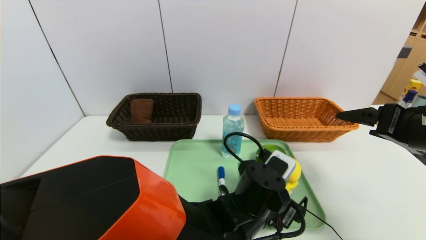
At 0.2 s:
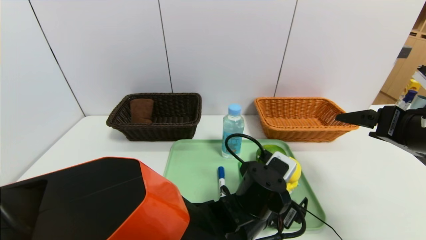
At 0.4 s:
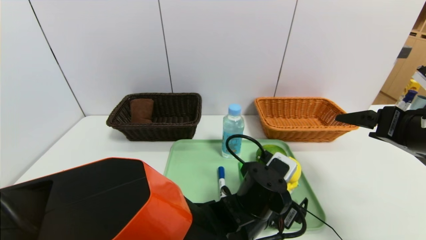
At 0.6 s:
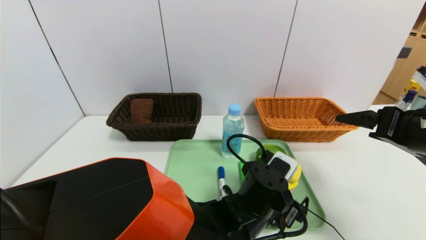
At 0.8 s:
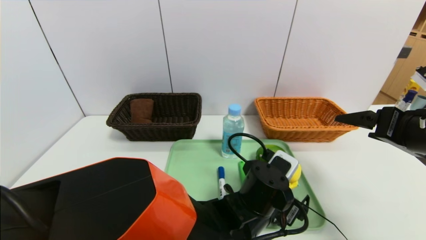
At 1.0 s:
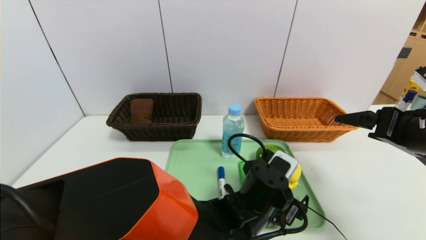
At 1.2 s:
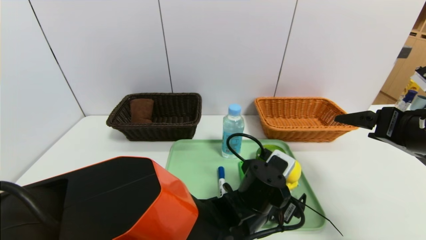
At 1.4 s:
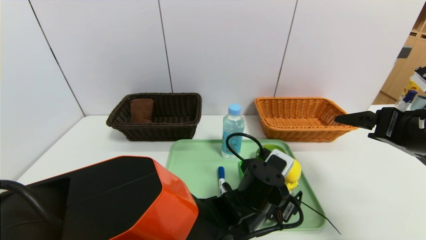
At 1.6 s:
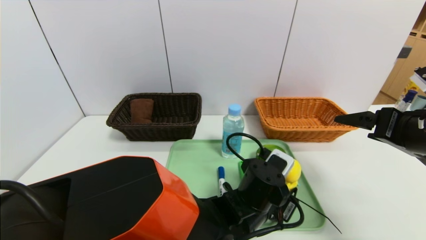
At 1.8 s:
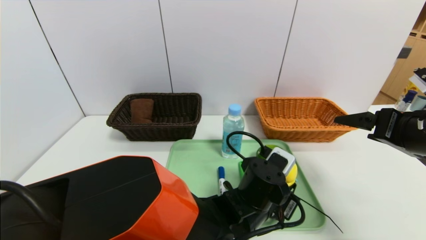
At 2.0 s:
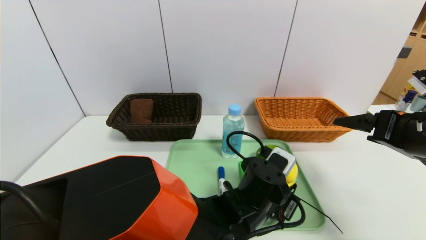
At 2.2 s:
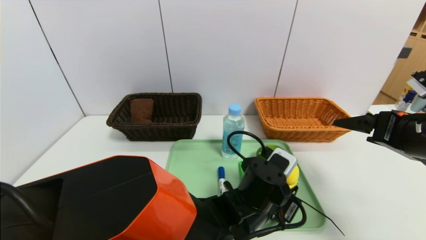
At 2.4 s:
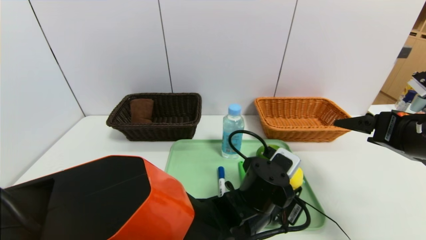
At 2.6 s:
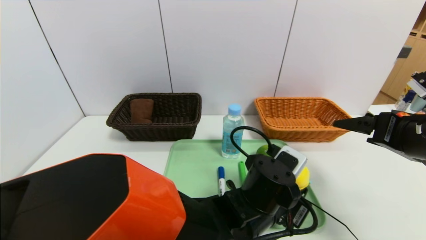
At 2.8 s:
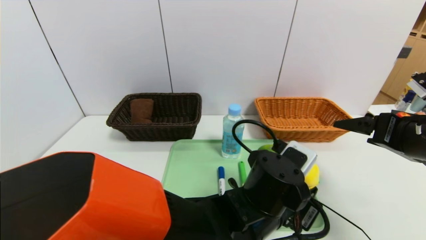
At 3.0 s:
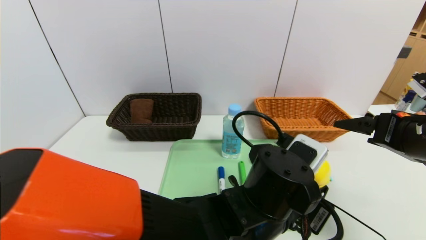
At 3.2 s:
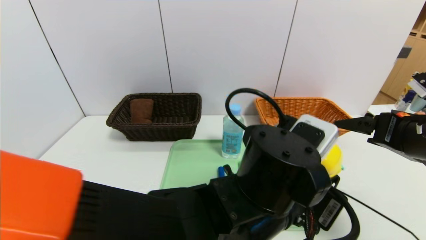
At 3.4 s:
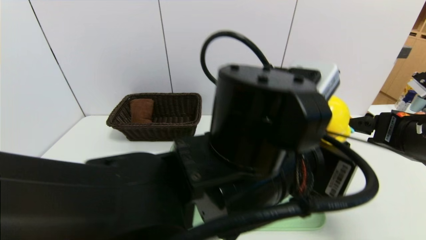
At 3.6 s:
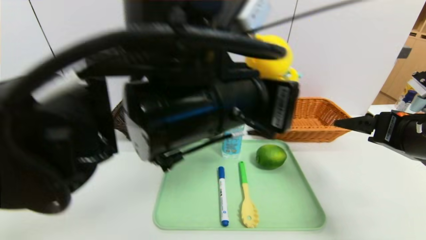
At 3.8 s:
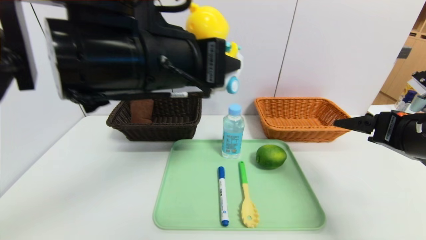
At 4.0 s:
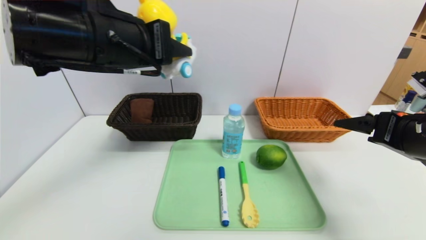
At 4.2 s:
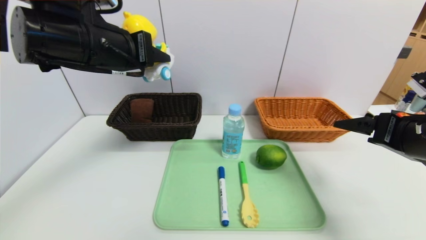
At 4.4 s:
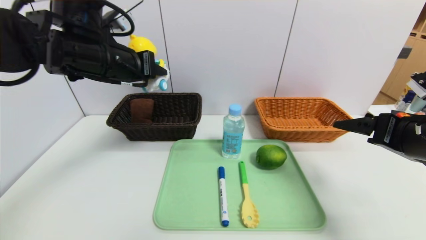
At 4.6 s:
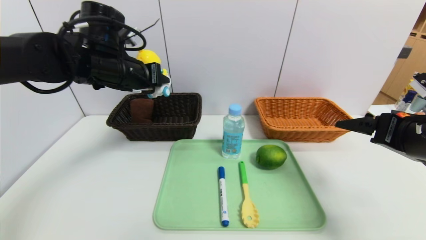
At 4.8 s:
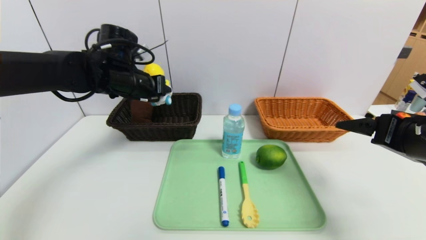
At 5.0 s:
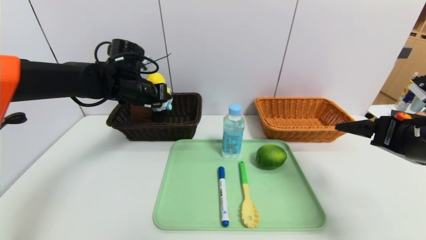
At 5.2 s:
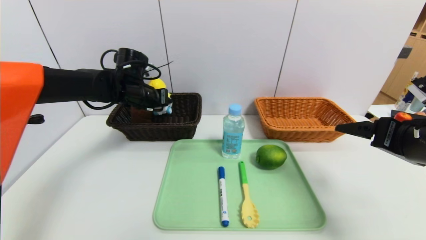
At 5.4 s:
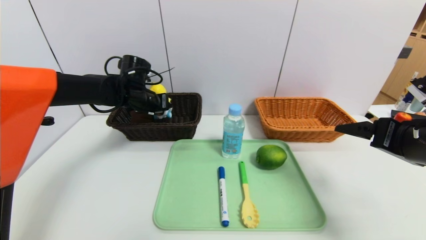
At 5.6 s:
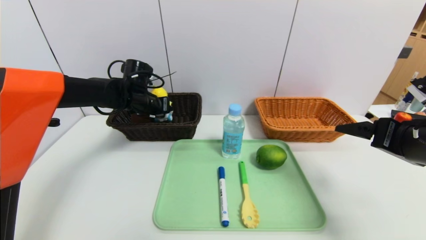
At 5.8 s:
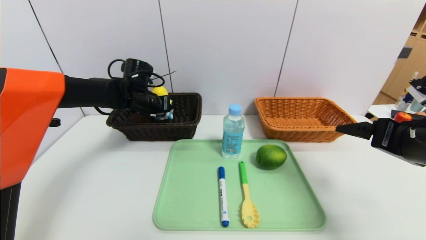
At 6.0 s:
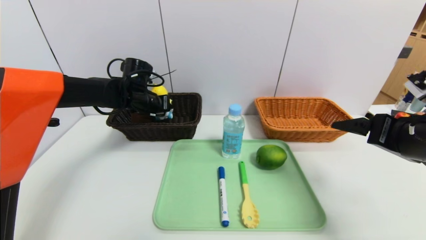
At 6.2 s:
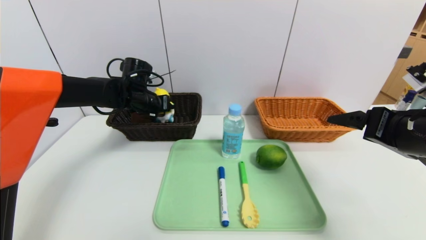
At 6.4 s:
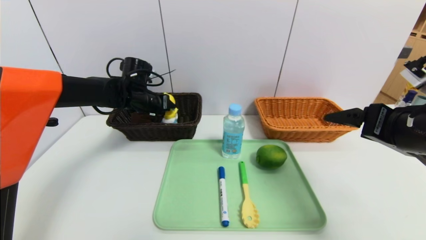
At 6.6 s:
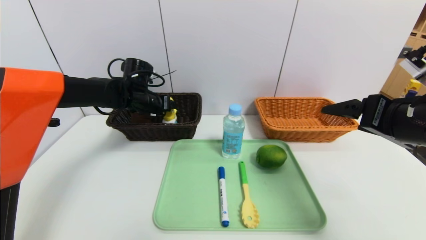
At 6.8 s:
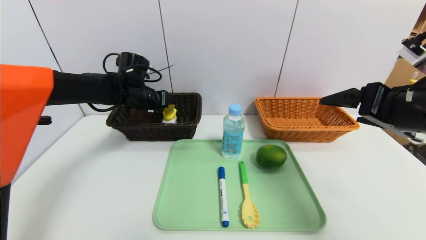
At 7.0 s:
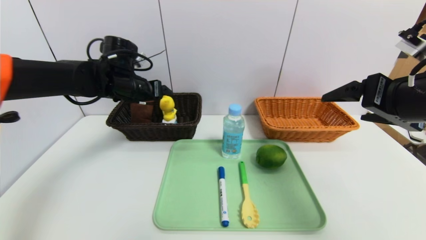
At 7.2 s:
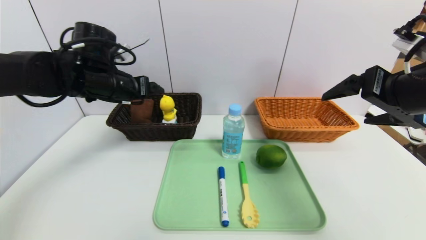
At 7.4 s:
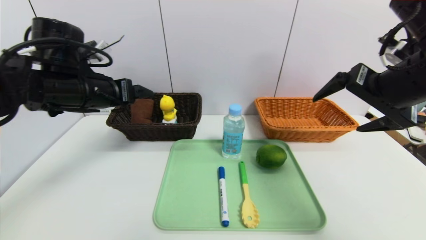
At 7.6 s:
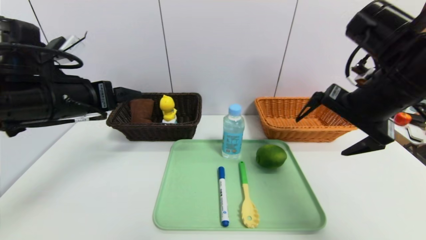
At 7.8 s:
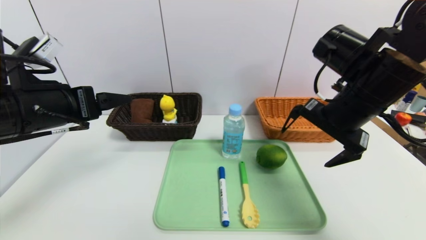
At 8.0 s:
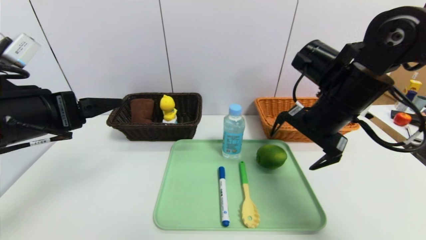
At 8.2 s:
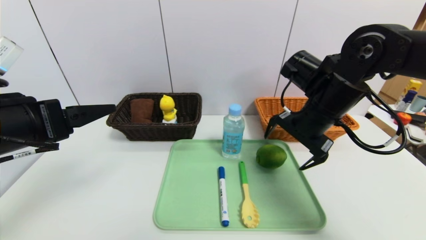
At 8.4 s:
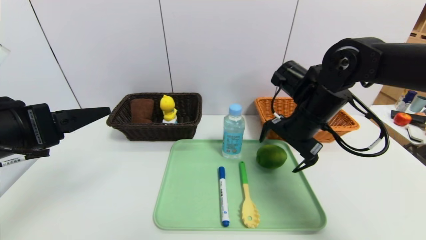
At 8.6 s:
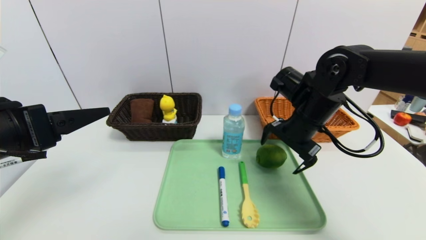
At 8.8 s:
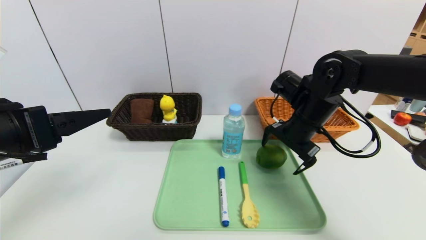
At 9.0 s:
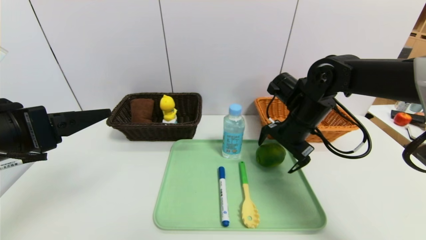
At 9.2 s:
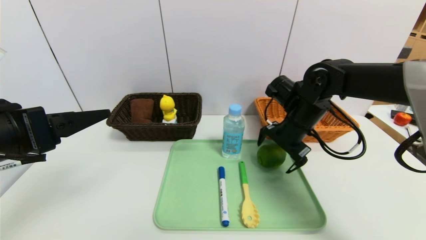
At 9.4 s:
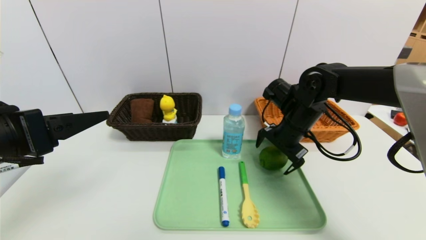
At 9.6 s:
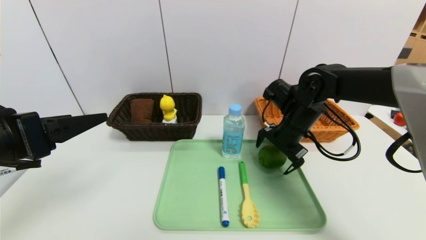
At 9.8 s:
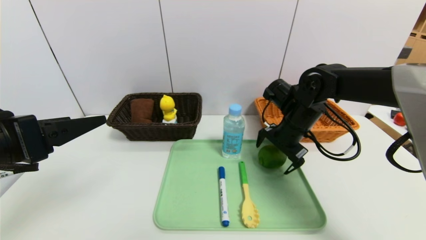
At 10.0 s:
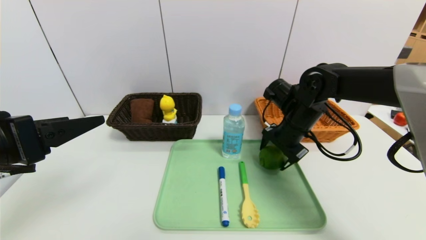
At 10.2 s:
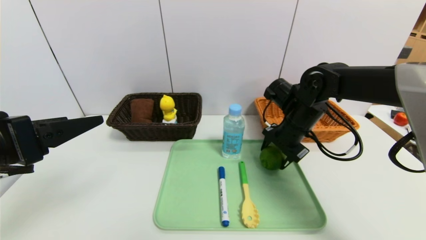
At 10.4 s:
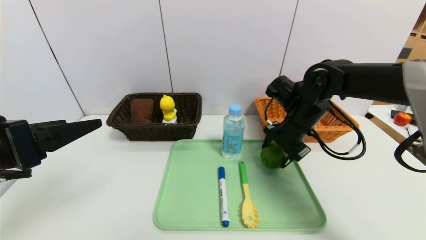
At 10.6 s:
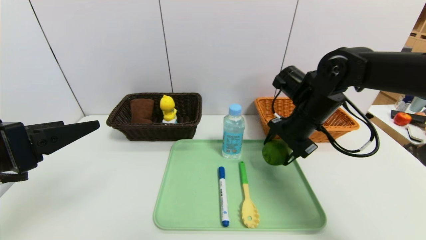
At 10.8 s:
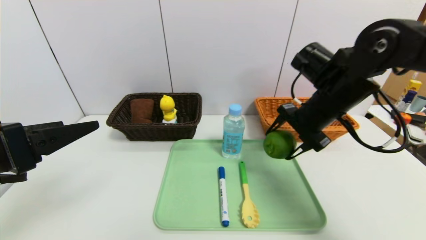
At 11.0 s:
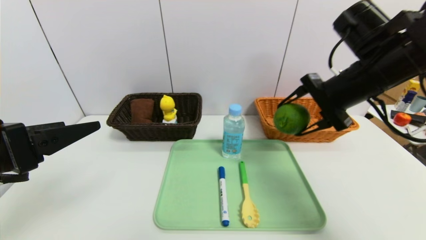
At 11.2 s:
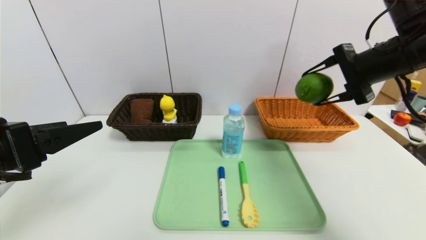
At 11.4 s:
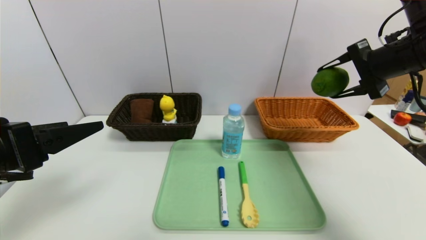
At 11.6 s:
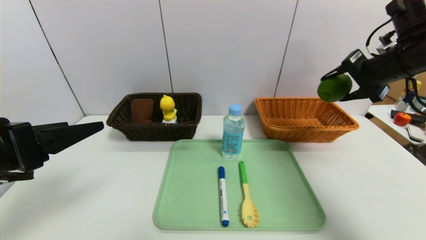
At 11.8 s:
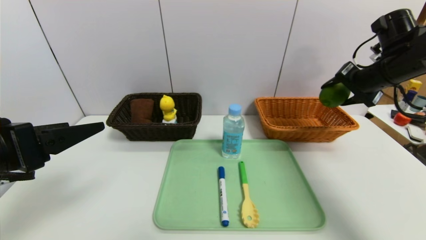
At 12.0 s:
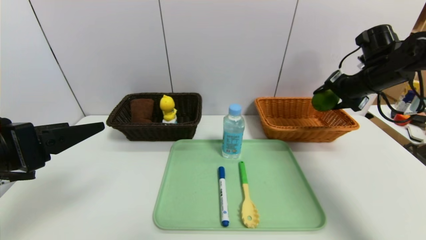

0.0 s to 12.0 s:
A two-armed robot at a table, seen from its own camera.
Task of the whole recording: place the food in the right basket with the right gripper, and place the non food items in the left basket with the left gripper.
Step, 0.0 to 7.0 s: Grasp the yellow duck and put it in the left basket.
0.0 to 1.6 s: The left gripper closes.
1.6 to 3.0 s: The left gripper shifts roughly 10 cm upward and backward.
3.0 to 4.4 s: The left gripper moves to the left, upward and forward, some 35 cm.
4.4 to 6.0 s: The left gripper goes roughly 20 cm downward and forward.
6.0 to 7.6 s: The left gripper moves backward and upward, about 20 cm, and opens. The right gripper goes some 10 cm to the left, upward and forward.
7.6 to 9.0 s: The left gripper travels backward by about 10 cm, while the right gripper moves downward and forward, roughly 15 cm.
9.0 to 10.4 s: The right gripper closes up.
10.4 to 12.0 s: The right gripper shifts approximately 20 cm to the right and upward.

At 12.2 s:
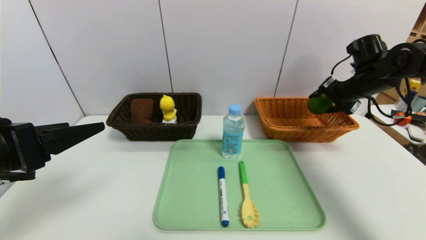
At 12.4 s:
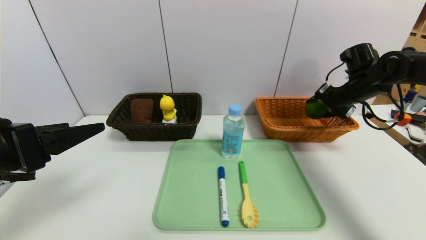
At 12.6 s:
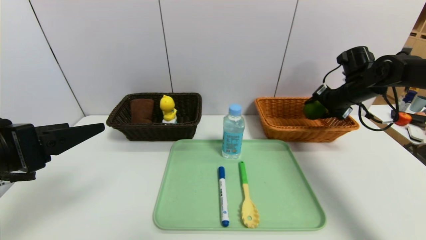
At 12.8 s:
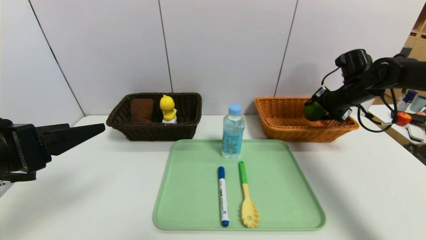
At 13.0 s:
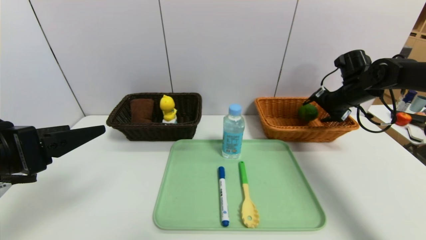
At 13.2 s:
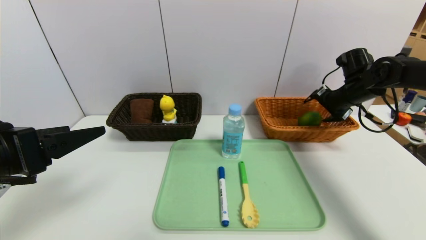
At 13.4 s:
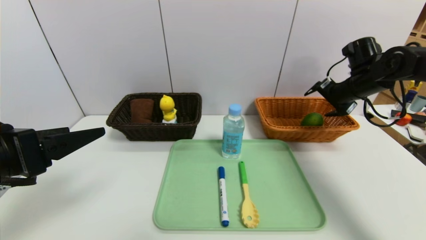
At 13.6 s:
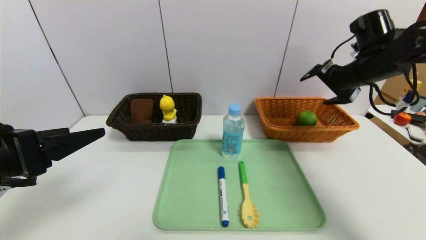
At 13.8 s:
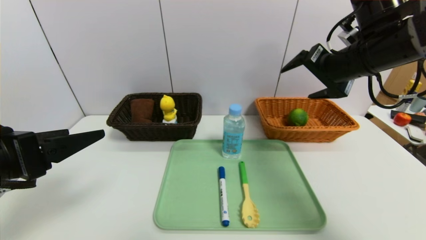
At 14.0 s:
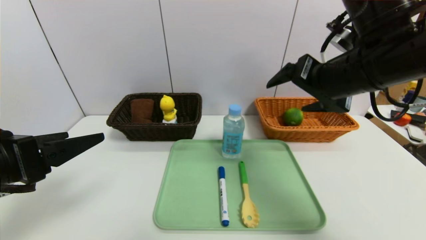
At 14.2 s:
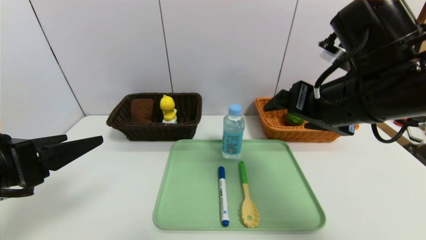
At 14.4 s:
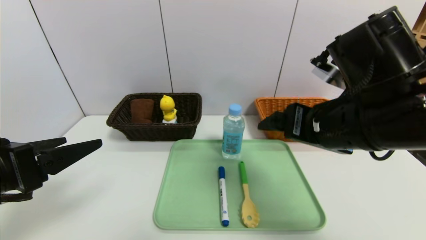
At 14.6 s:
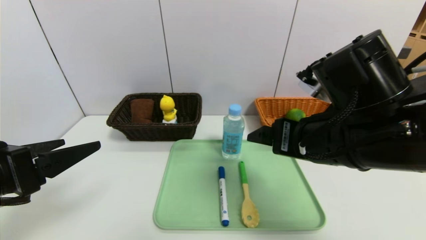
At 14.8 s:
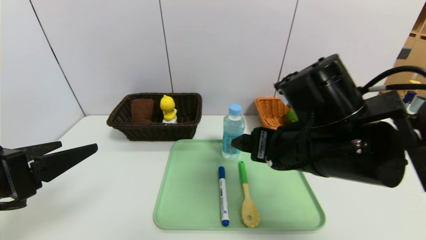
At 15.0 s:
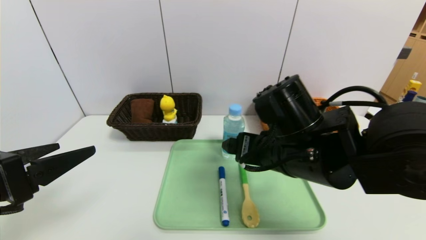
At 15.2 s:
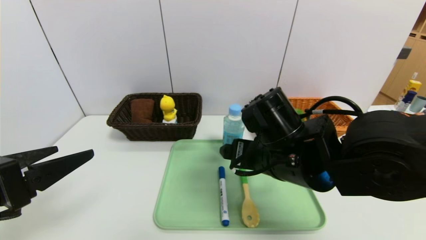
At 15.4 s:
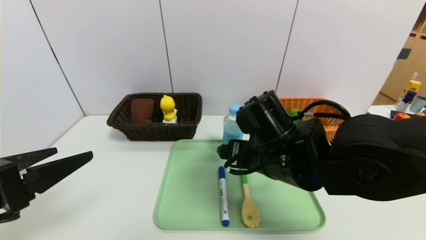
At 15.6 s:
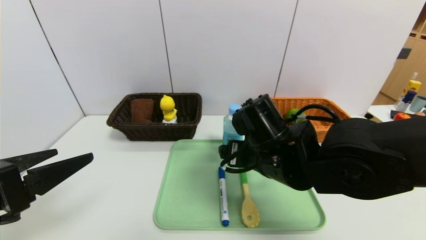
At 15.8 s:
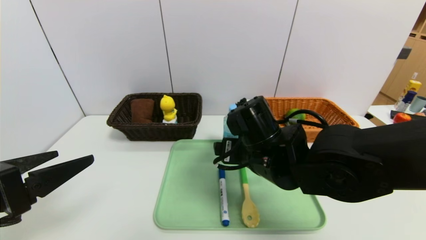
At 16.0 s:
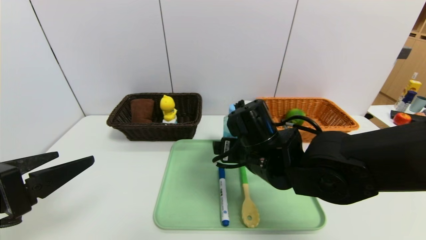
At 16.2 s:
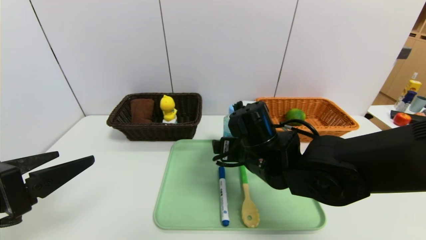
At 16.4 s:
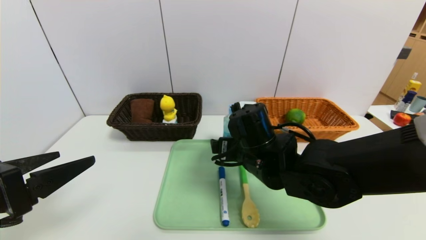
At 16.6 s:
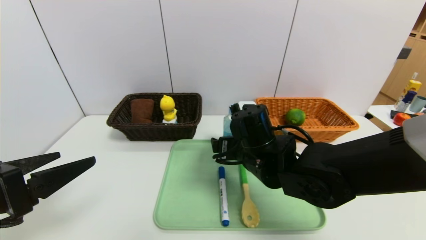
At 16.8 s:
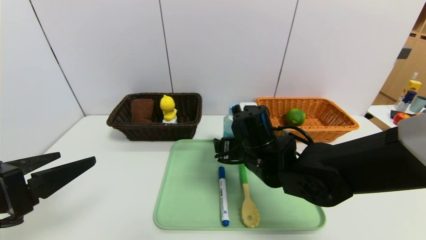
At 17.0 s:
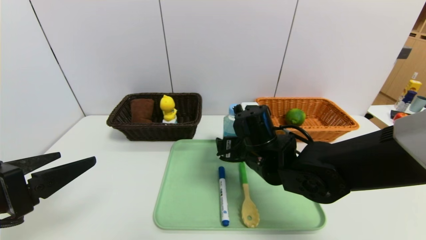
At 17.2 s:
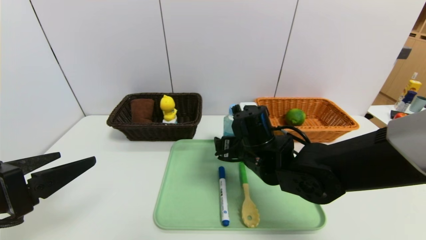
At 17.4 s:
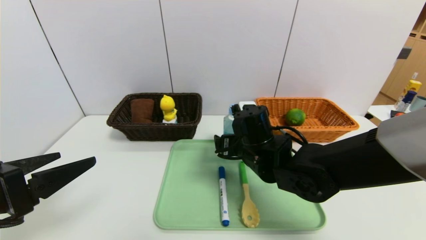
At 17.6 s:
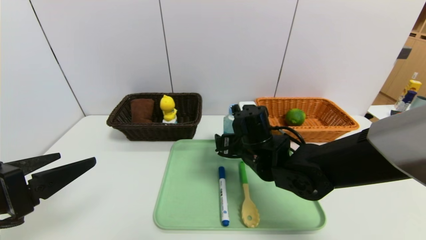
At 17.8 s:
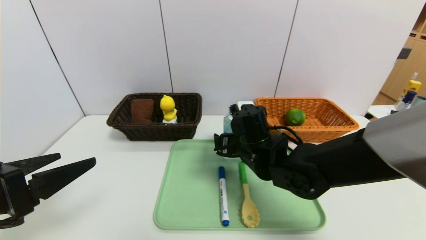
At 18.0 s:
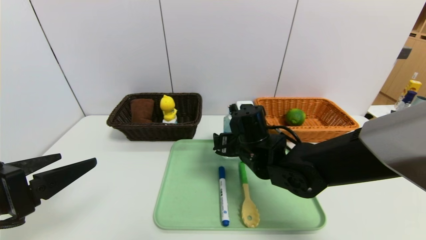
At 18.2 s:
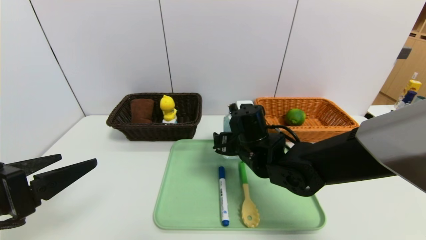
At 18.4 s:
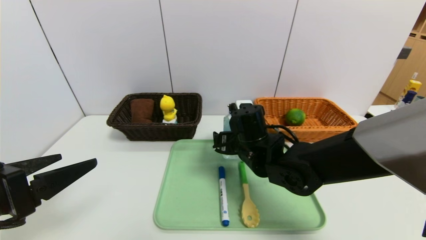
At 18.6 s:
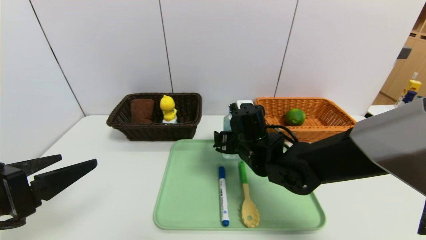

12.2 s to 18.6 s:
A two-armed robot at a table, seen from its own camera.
Task of the whole recording: place the food in the right basket with the right gripper, and place the non food items in the left basket with the left gripper.
12.2 to 13.8 s: The right gripper travels to the left, backward and upward by some 20 cm, and opens.
13.8 to 15.4 s: The right gripper shifts approximately 20 cm to the left, downward and backward.
15.4 to 17.0 s: The right gripper goes approximately 5 cm forward.
17.0 to 18.6 s: There are only small adjustments of the grippers.
